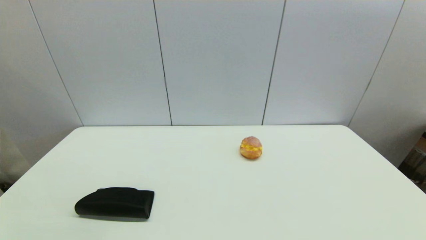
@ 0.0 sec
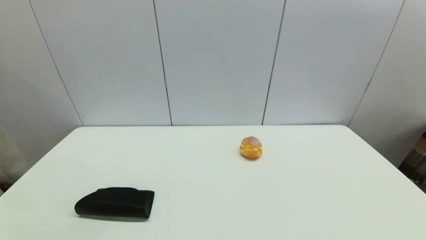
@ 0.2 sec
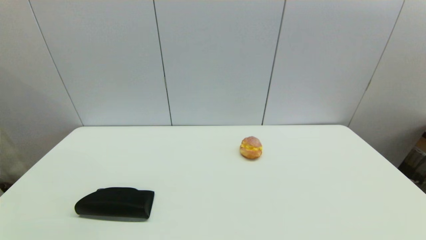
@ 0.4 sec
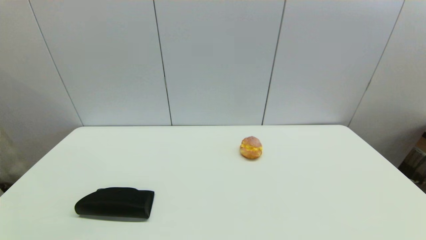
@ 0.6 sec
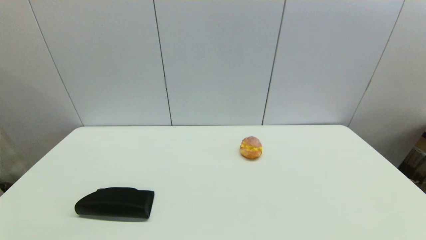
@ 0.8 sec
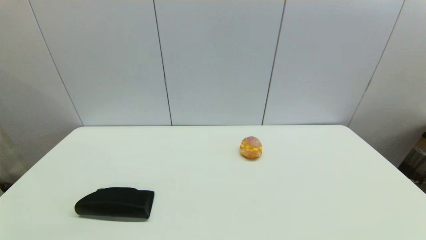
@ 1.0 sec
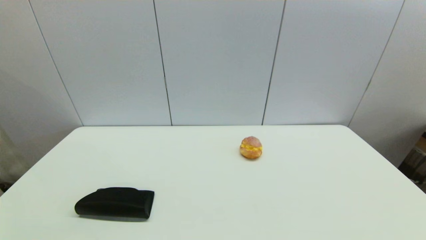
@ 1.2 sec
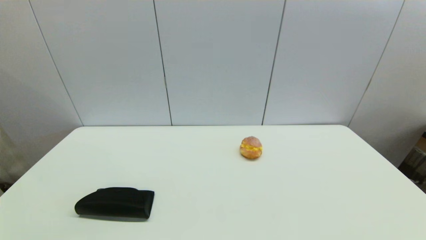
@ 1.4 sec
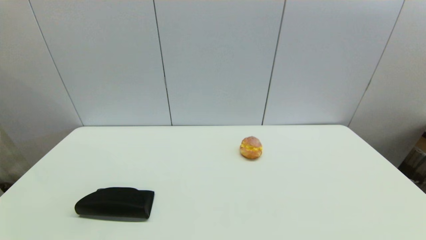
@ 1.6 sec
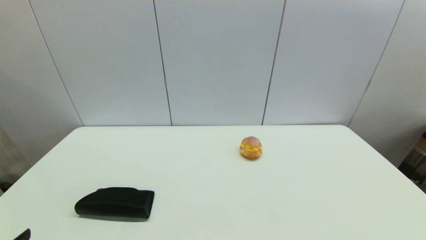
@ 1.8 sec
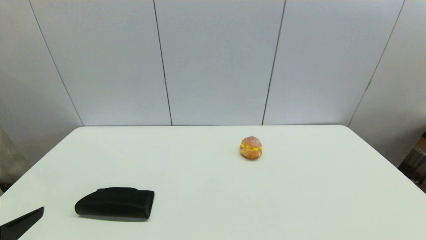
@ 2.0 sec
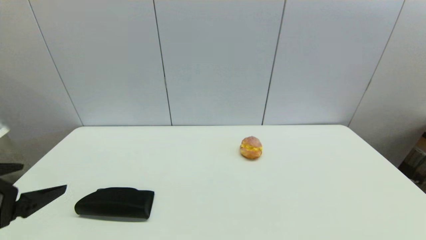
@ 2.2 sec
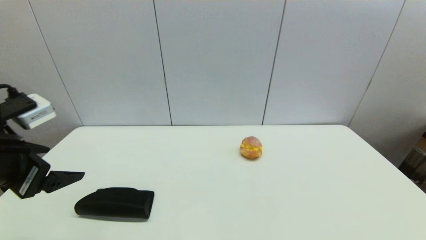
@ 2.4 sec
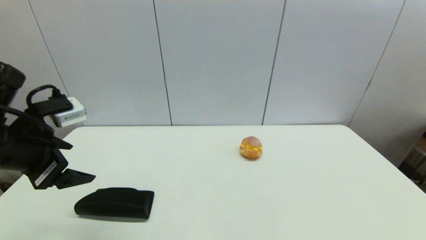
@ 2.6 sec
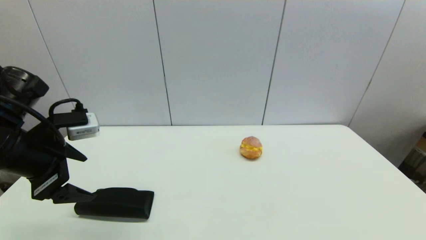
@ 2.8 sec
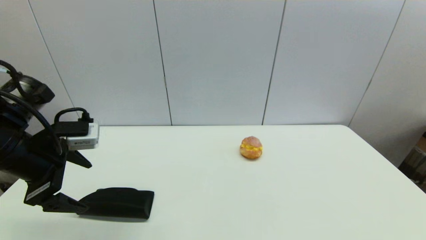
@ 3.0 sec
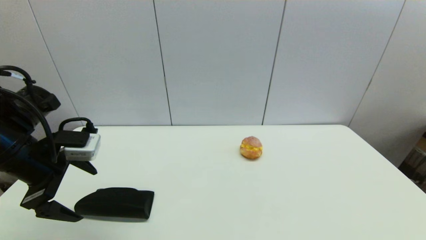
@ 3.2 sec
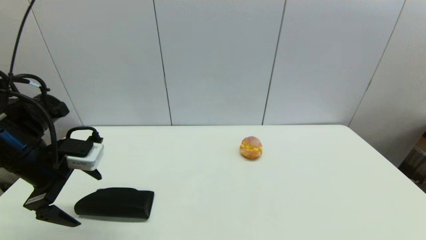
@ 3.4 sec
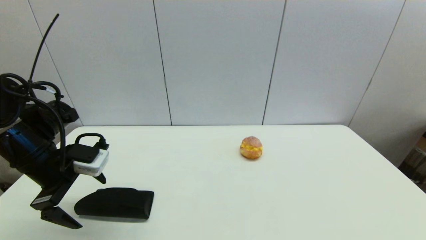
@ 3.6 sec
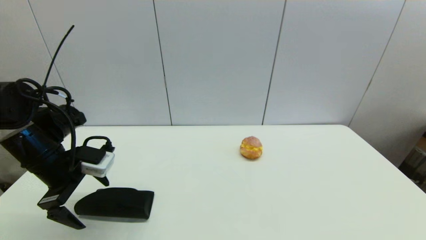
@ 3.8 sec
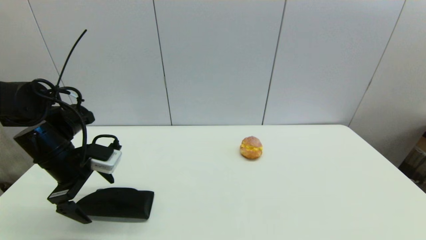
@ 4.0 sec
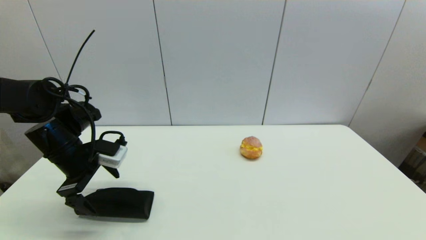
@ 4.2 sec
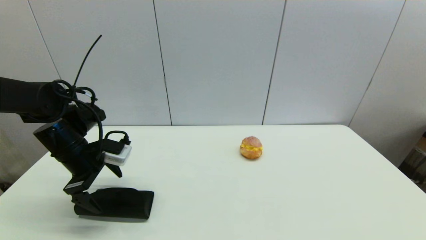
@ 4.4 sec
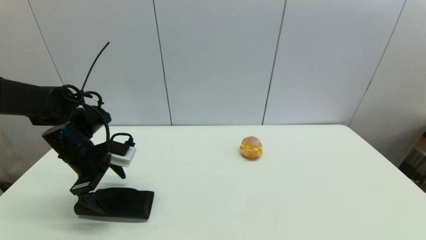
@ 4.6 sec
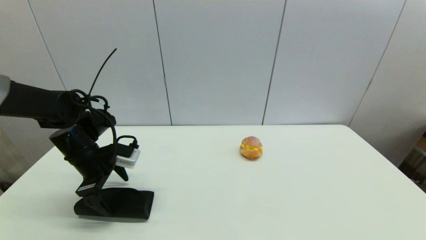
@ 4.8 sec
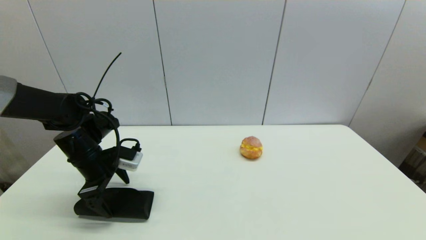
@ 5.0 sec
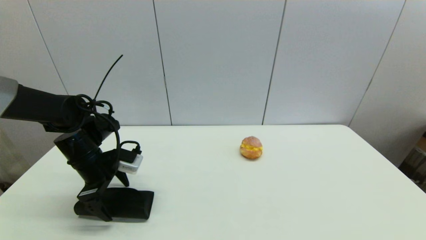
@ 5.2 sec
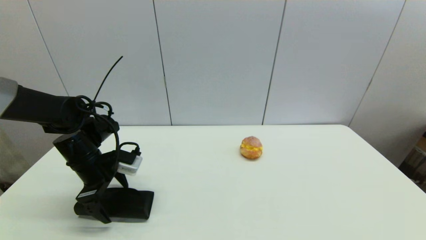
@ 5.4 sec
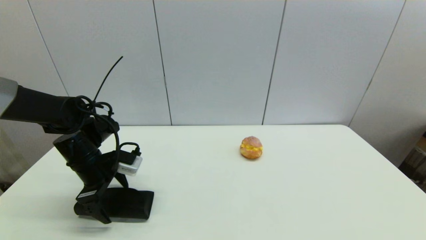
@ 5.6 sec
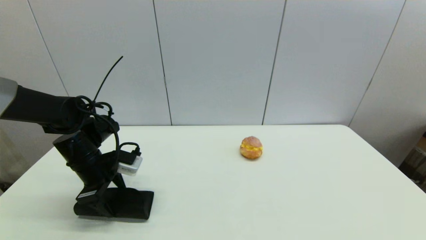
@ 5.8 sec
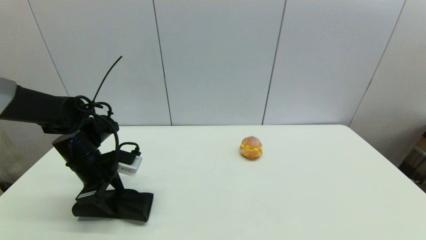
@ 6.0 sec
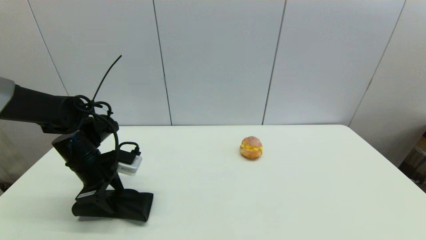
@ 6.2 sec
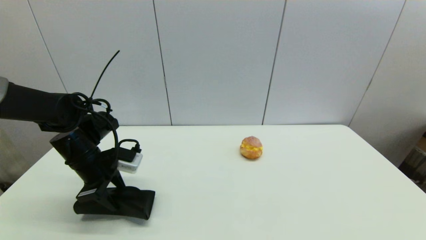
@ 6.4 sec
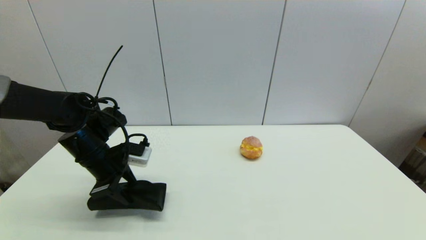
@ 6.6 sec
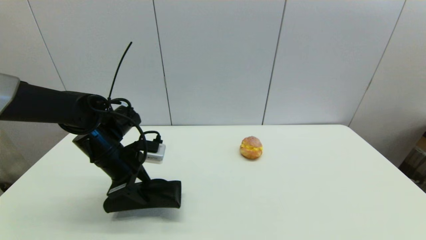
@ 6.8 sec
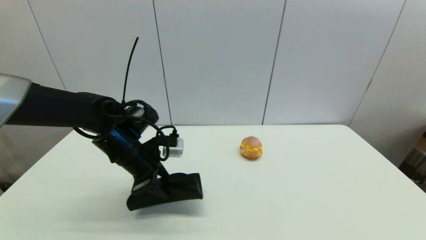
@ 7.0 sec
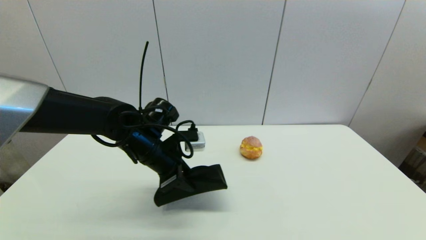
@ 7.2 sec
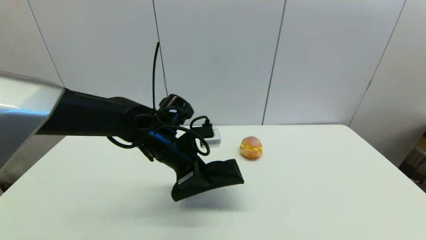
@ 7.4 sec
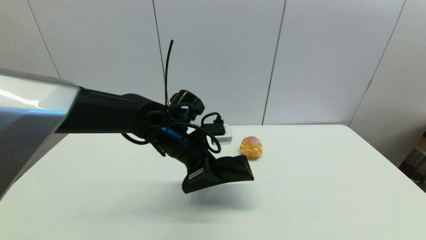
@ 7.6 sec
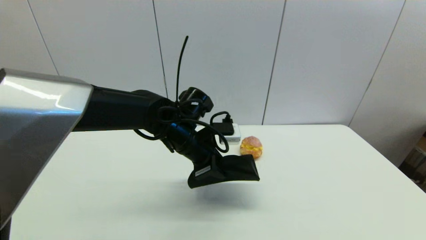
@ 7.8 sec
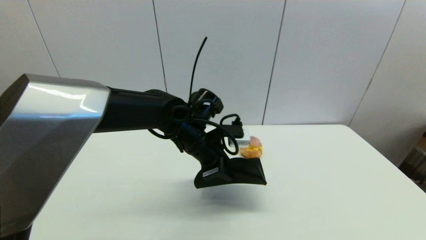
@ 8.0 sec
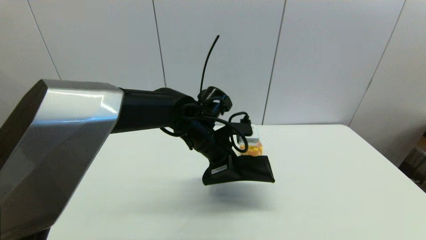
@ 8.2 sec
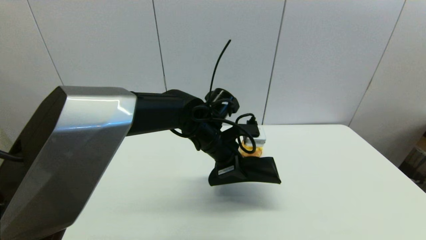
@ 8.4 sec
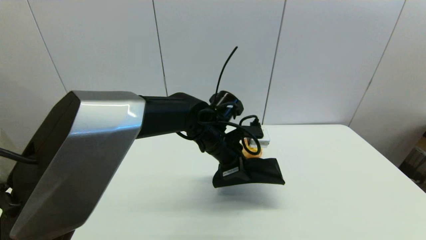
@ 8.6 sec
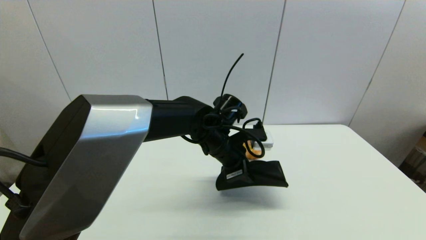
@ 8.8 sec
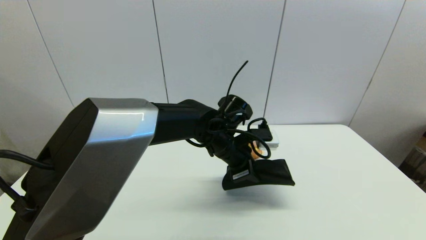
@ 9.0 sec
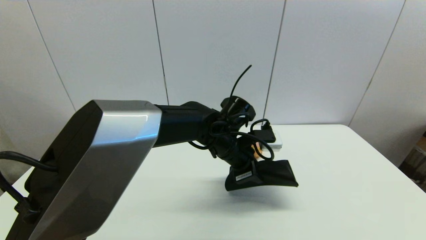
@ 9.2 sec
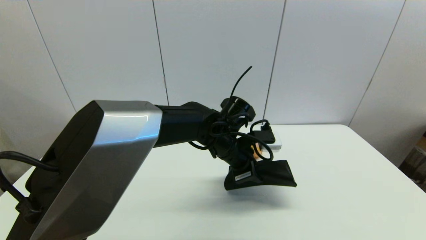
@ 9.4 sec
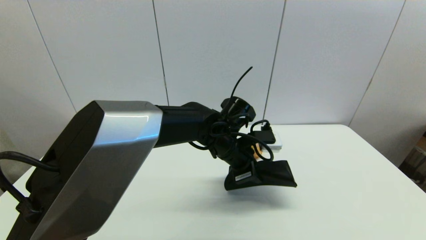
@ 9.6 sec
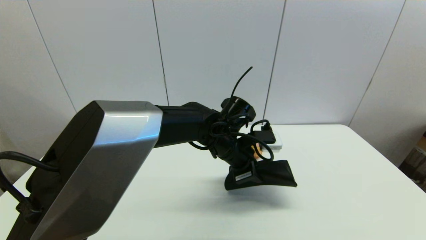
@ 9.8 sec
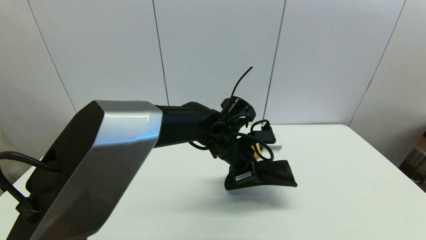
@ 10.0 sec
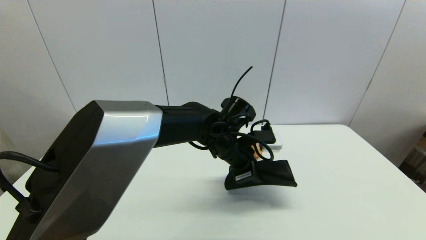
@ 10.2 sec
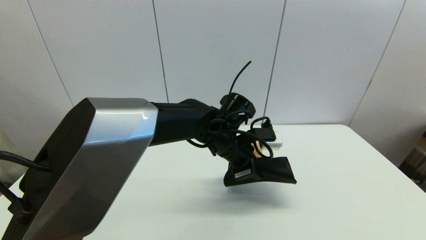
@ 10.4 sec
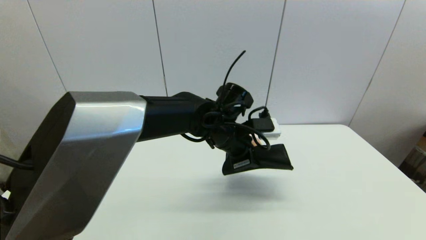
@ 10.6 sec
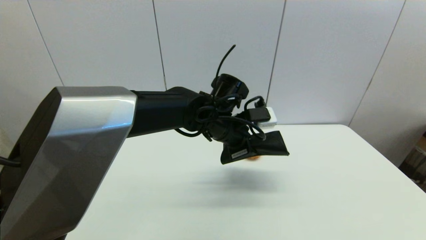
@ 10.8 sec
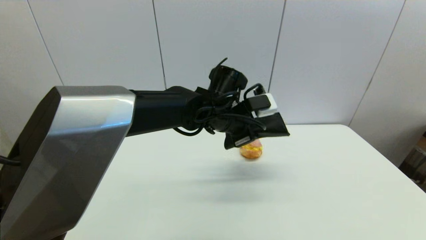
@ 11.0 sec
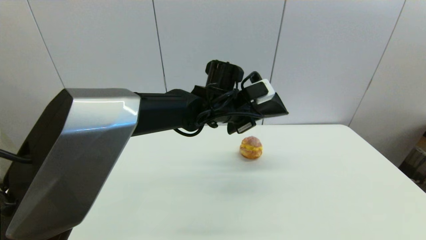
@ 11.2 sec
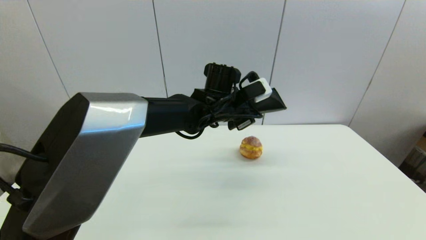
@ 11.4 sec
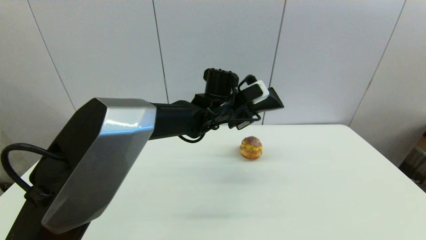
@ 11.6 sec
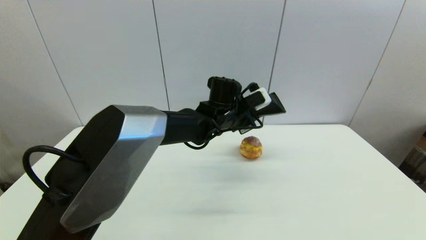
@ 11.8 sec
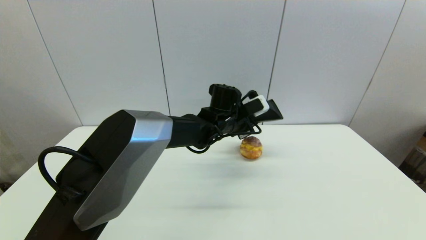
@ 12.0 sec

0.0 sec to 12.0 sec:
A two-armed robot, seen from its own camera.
Step, 1.8 sec to 6.0 sec: Grasp the glasses case with left gripper.
1.6 sec to 3.0 sec: The left gripper travels forward and upward by some 25 cm.
3.0 sec to 4.4 sec: The left gripper heads forward and downward, covering some 10 cm.
4.4 sec to 6.0 sec: The left gripper closes its fingers.
6.0 sec to 7.6 sec: The left gripper is displaced to the right by about 20 cm.
7.6 sec to 9.0 sec: The left gripper travels to the right by roughly 10 cm.
9.0 sec to 10.4 sec: The two grippers keep their place.
10.4 sec to 12.0 sec: The left gripper travels forward by approximately 10 cm.

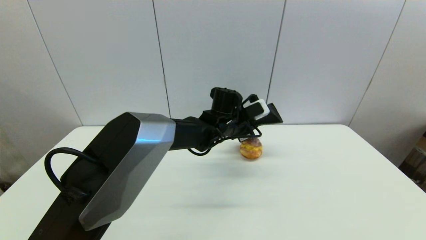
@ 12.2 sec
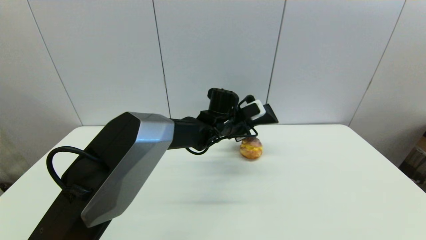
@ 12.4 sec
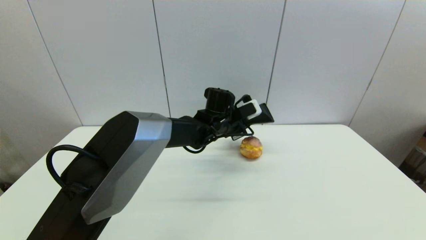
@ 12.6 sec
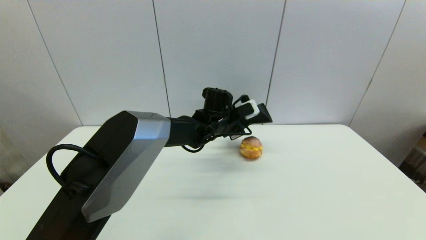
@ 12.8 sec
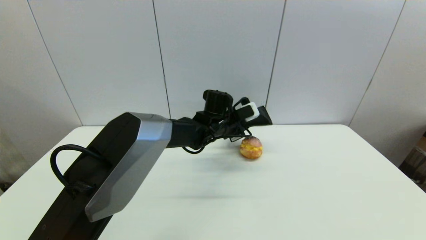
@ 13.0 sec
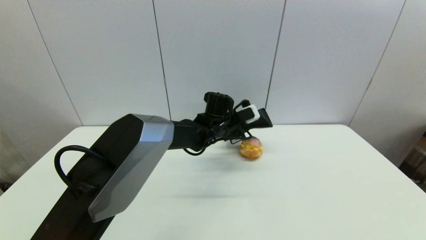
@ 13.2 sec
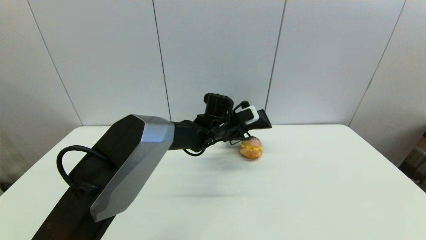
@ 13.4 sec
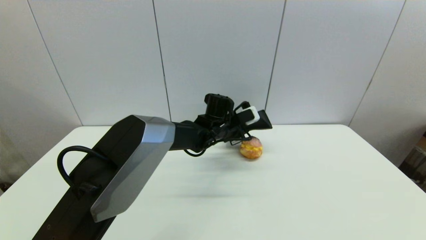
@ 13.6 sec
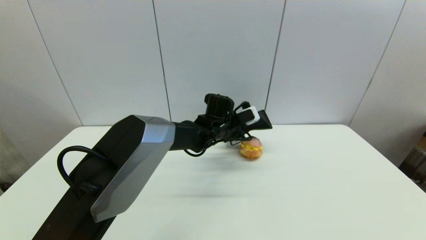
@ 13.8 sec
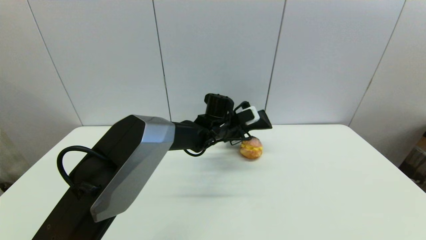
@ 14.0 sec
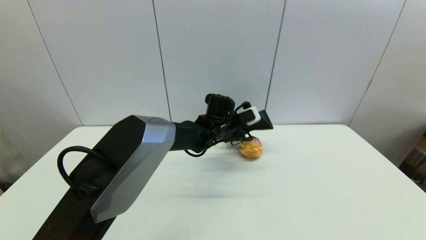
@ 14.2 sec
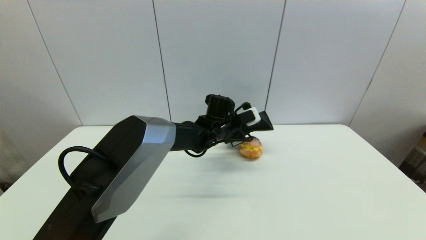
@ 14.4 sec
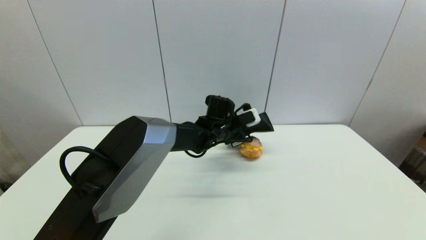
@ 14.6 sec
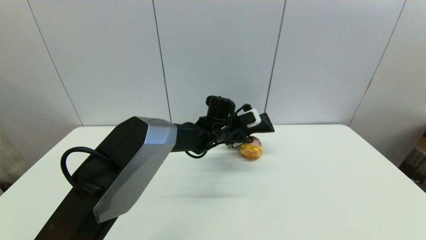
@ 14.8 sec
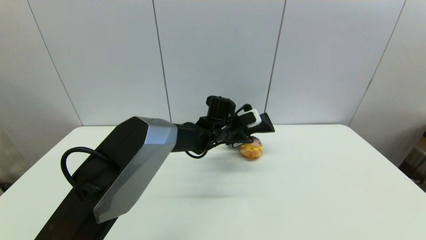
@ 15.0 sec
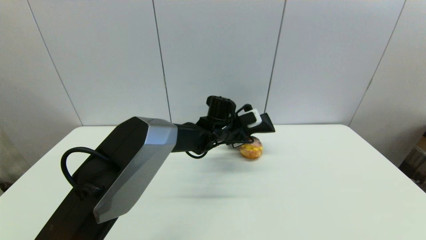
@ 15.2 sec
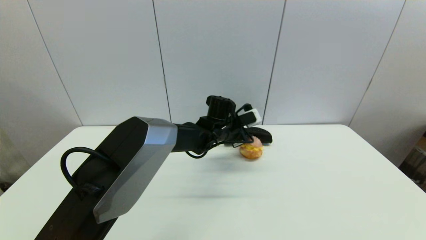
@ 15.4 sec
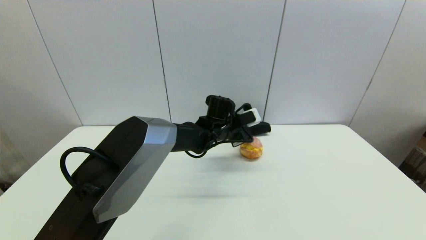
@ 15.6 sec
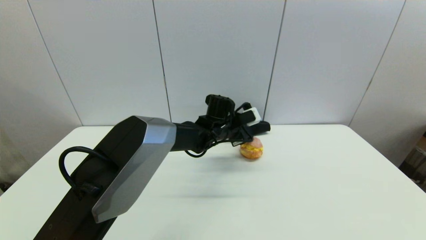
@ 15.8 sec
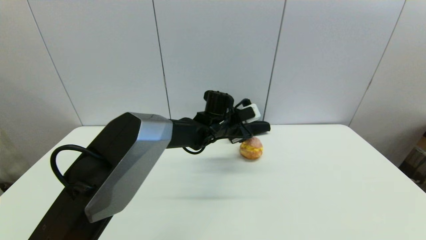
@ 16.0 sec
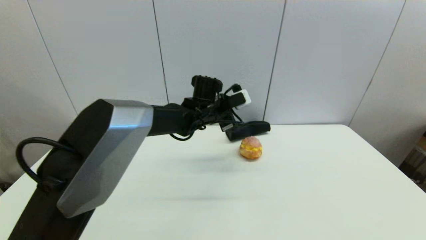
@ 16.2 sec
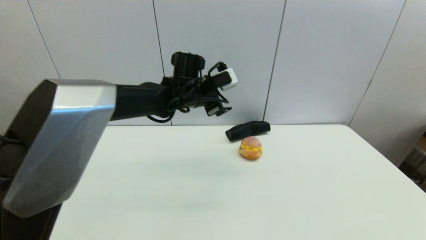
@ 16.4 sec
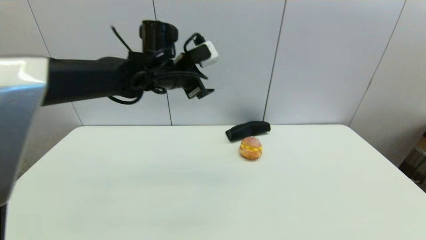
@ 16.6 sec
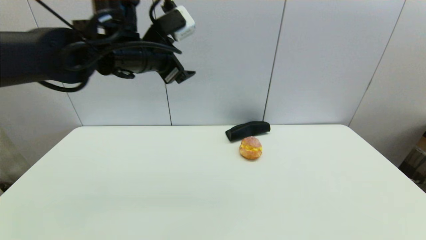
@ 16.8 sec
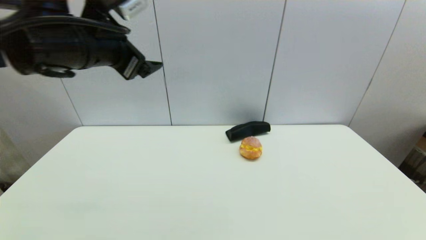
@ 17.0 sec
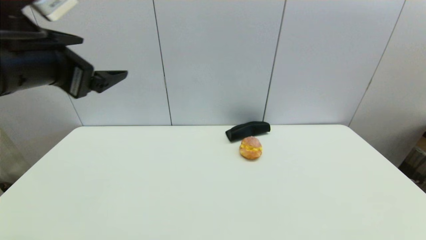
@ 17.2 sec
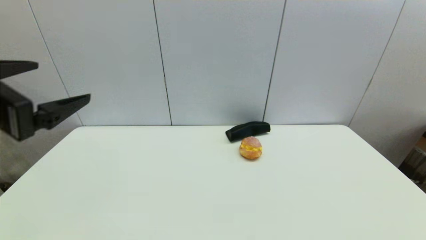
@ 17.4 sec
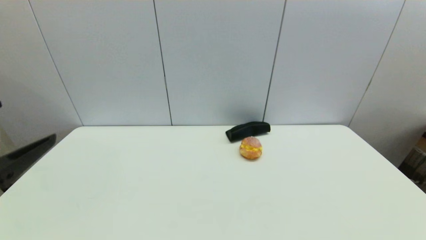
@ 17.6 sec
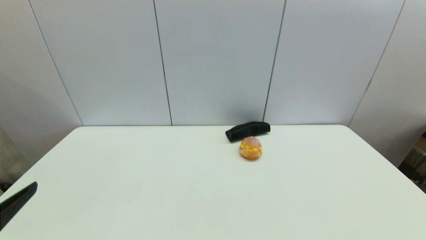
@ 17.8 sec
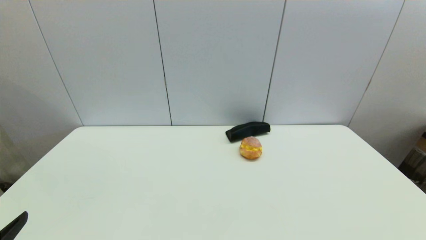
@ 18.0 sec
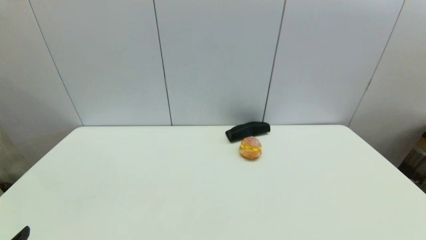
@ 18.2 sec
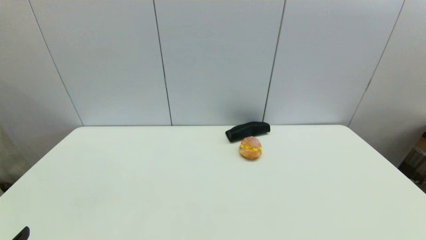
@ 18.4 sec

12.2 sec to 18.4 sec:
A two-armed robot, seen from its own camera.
Step, 12.2 sec to 15.6 sec: Place the glasses case on the table with left gripper.
12.2 sec to 13.8 sec: There are only small adjustments of the grippers.
13.8 sec to 15.4 sec: The left gripper opens.
15.4 sec to 16.8 sec: The left gripper is displaced upward, to the left and backward by about 30 cm, and opens its fingers.
16.8 sec to 18.4 sec: The left gripper travels backward, downward and to the left by some 40 cm.
